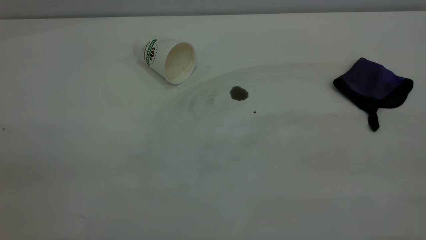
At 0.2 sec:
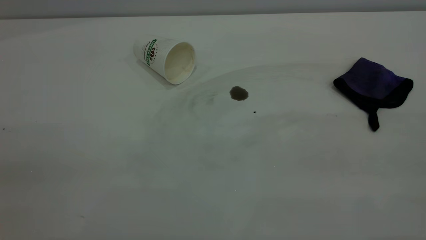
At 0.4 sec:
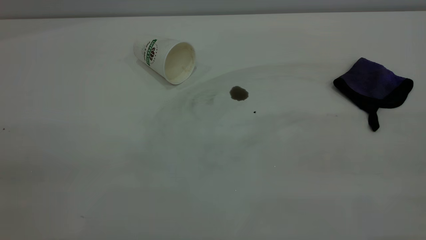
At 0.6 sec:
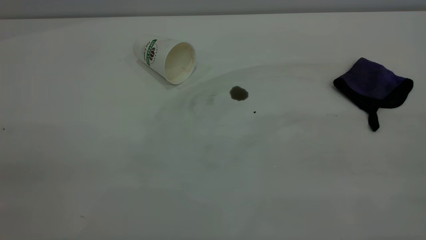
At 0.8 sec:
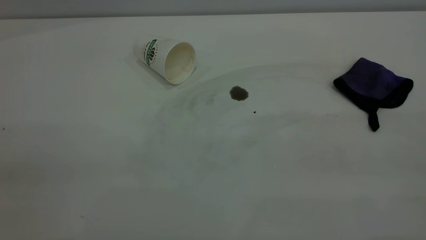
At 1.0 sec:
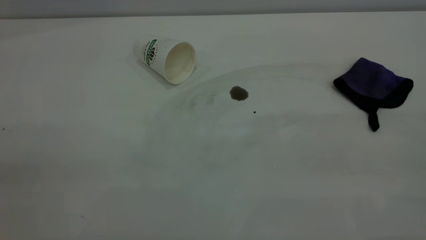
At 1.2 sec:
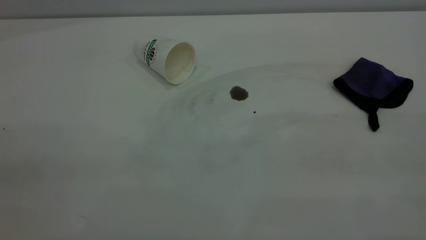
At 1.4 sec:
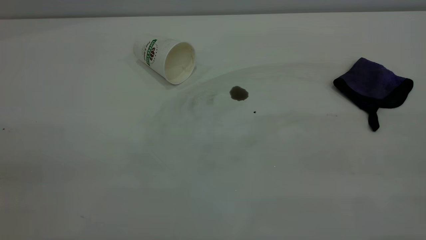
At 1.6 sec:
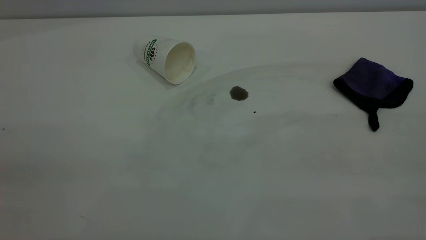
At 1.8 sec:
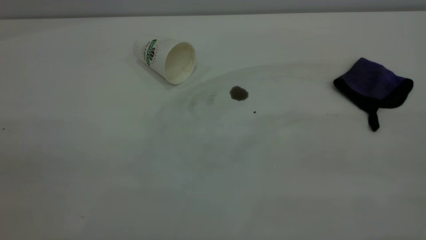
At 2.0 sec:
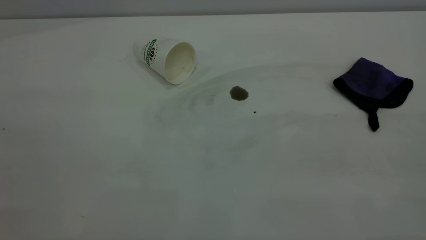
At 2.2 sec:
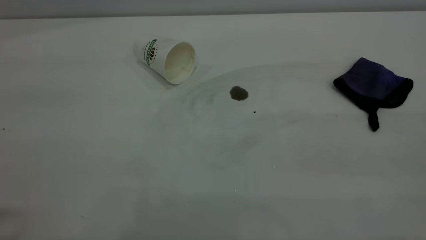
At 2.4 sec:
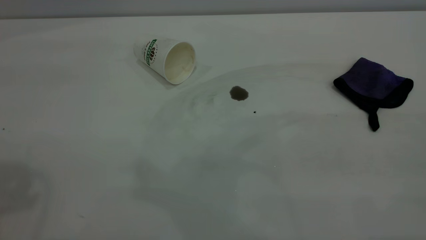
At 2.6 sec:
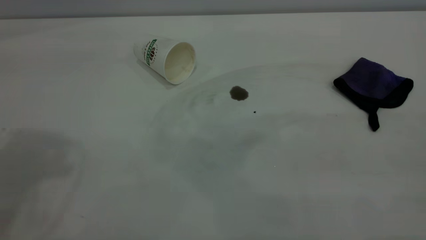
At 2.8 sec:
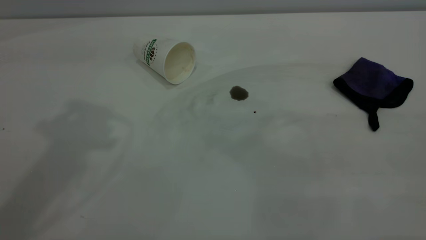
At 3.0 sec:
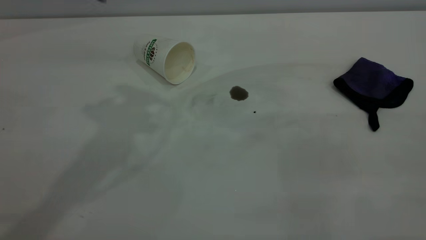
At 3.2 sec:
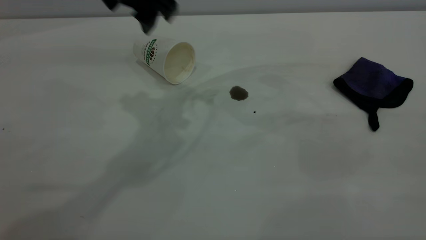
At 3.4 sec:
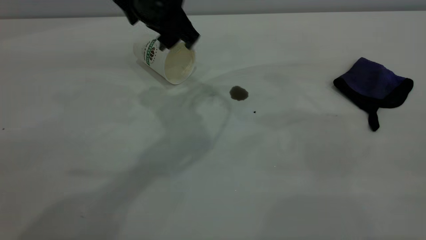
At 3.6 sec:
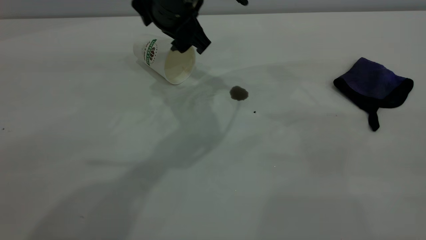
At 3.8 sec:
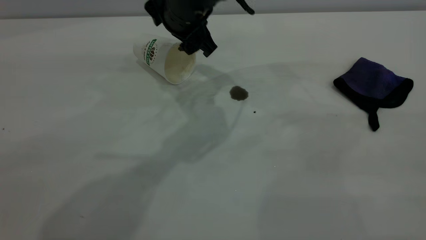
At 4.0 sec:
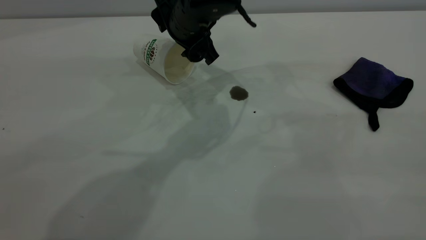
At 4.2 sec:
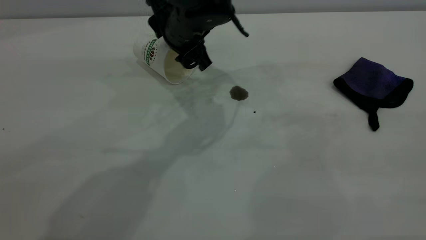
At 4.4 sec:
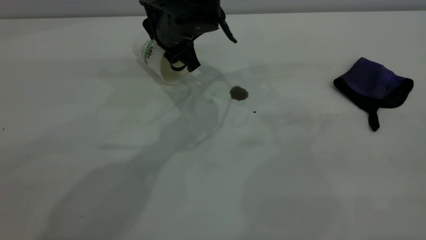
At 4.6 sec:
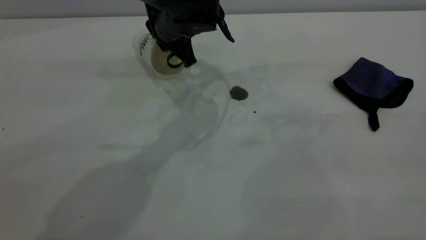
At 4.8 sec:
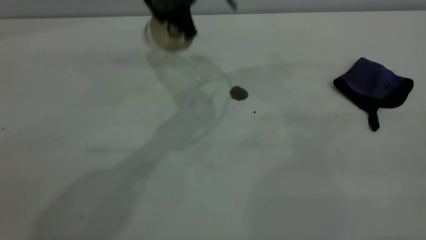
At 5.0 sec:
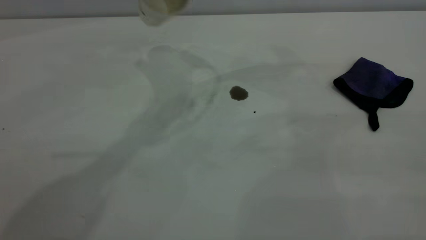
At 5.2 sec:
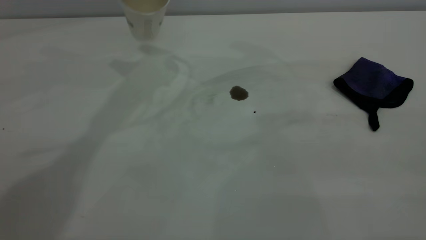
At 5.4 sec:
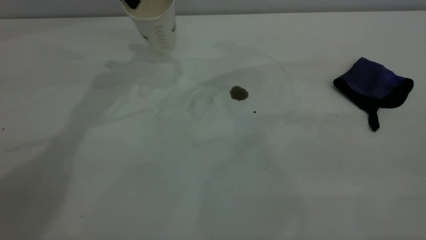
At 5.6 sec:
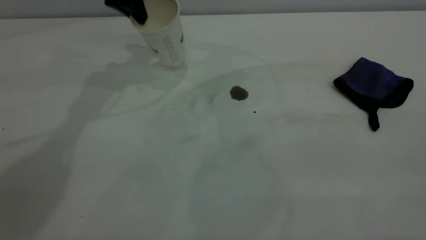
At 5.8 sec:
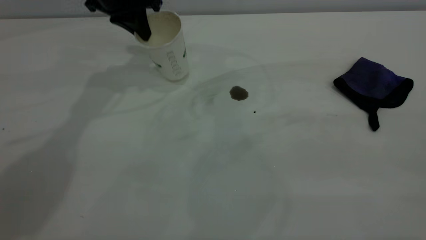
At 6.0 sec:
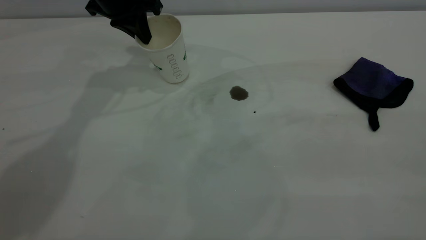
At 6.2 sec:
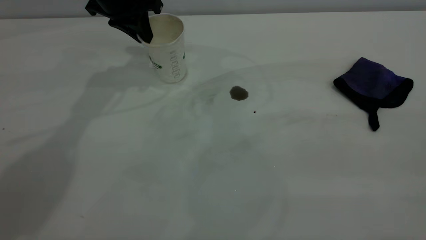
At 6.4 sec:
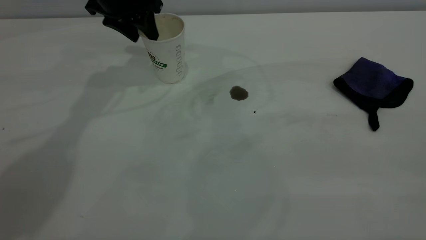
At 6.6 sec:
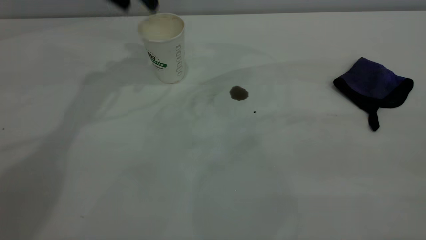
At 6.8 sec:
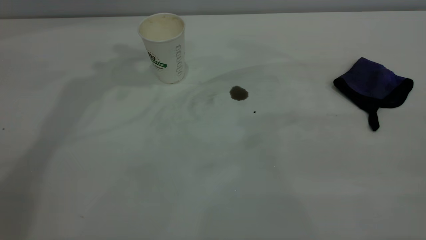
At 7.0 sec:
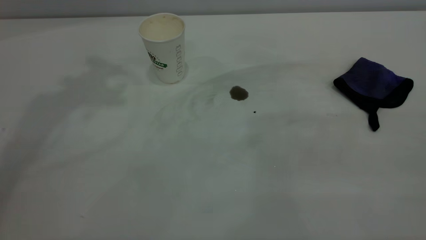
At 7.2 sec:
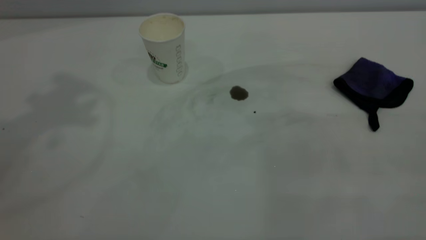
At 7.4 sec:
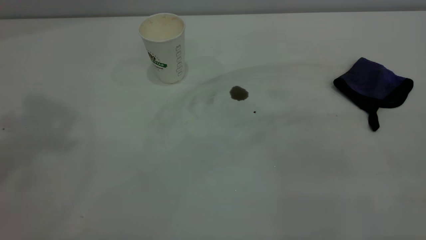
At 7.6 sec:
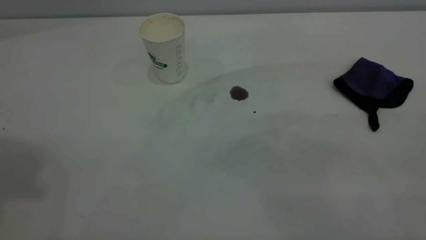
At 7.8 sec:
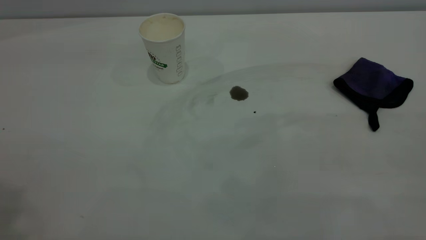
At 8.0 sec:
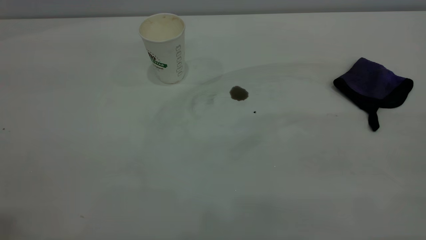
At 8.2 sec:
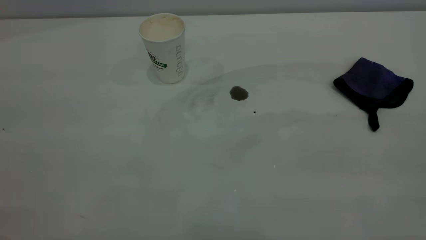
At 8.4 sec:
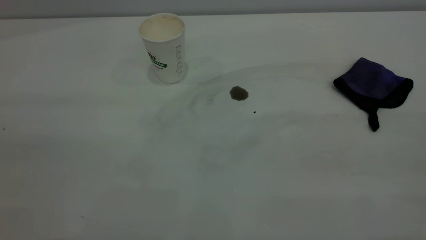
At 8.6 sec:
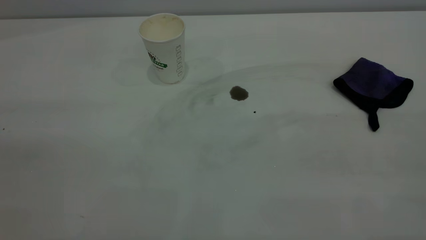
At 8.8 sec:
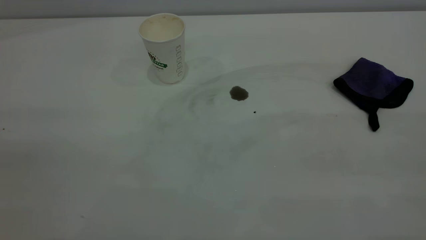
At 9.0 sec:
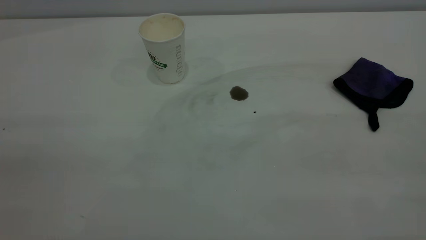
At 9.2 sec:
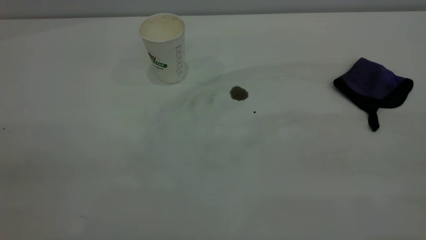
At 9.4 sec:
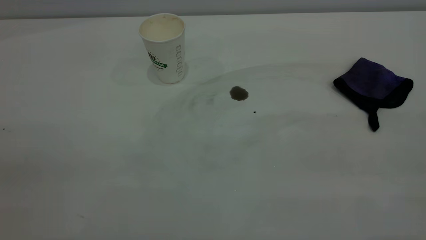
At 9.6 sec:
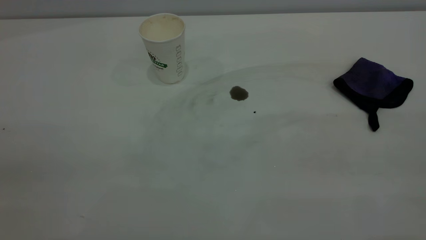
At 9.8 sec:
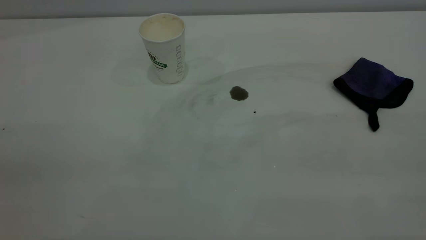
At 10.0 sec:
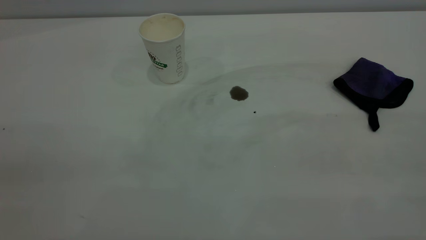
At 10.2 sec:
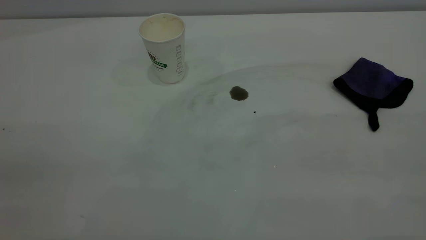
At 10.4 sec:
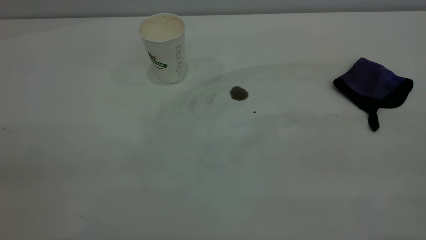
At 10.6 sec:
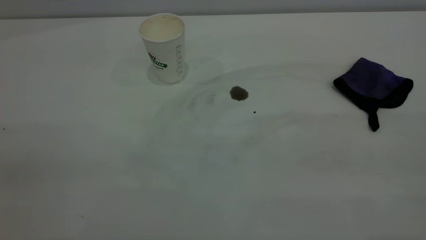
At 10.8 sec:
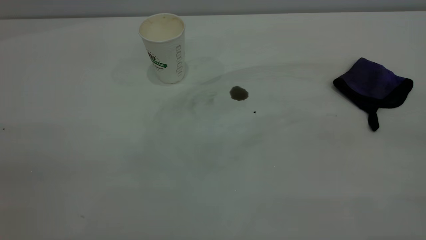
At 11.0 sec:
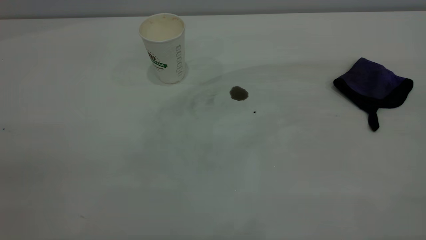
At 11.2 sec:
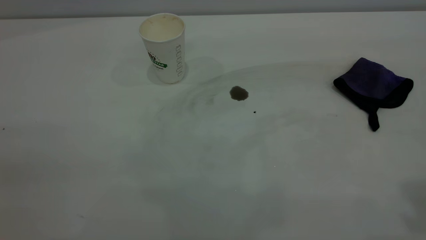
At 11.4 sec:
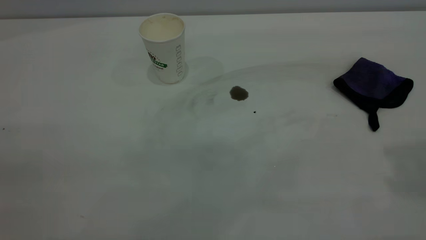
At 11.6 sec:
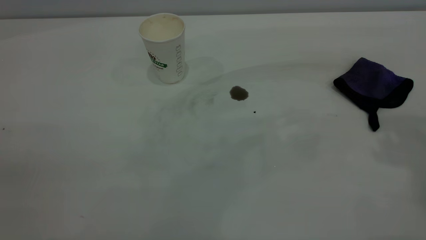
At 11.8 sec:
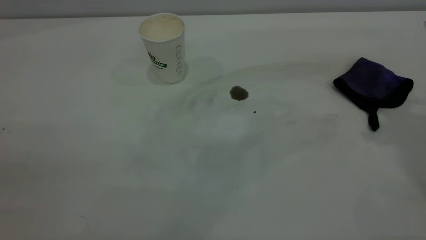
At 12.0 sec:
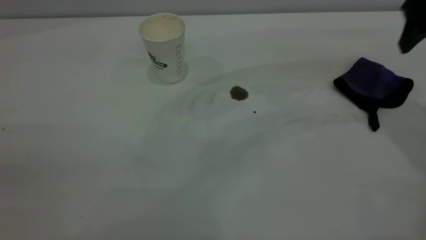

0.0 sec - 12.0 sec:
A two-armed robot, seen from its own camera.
Task of the whole recording: the left gripper pick up the fallen cup and place it upright, the right gripper grasp the purple rag and wipe the coffee stain on the table, the right gripper put the purple rag back in its original position.
Step, 0.0 sec - 6.4 sec: Stand the paper cup upright.
0.0 sec - 1.6 sec: The two grippers keep their place.
3.0 sec - 4.4 sec: The left gripper heads downward, to the right and forward, covering about 25 cm, and closes.
4.4 sec - 6.0 sec: The left gripper travels to the left, upward and forward by roughly 15 cm, and closes its fingers.
6.0 sec - 7.6 sec: The left gripper is displaced upward and backward by about 50 cm, and opens its fingers.
9.0 sec - 10.4 sec: The two grippers keep their place.
10.4 sec - 12.0 sec: The right gripper shifts some 35 cm forward, and opens.

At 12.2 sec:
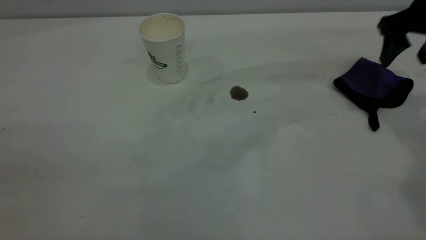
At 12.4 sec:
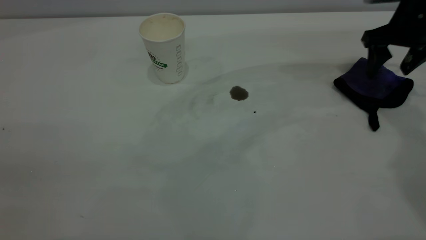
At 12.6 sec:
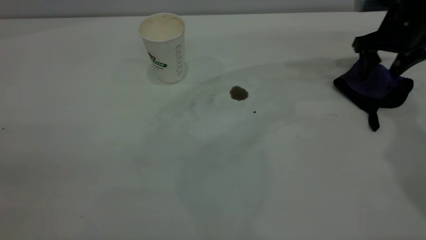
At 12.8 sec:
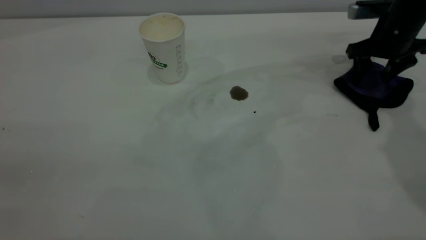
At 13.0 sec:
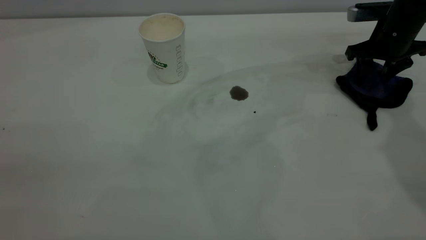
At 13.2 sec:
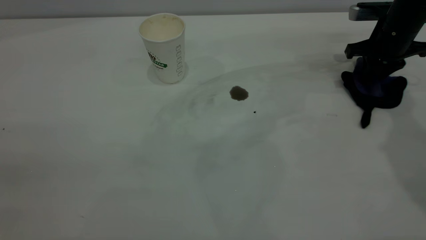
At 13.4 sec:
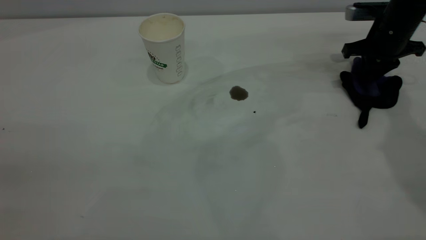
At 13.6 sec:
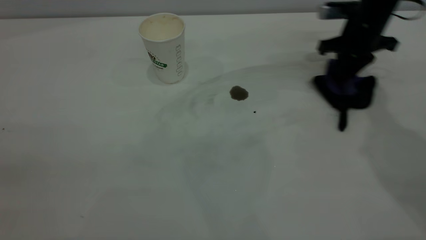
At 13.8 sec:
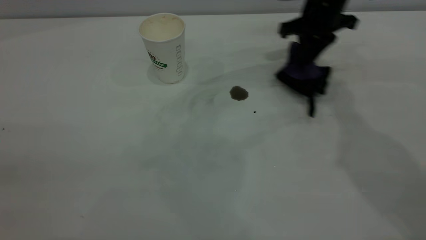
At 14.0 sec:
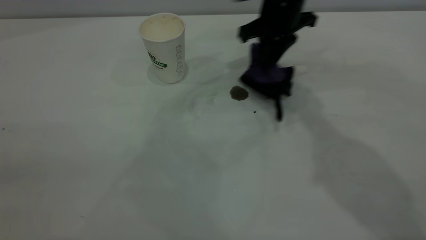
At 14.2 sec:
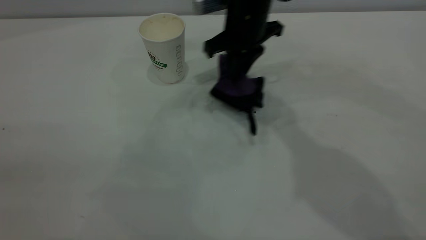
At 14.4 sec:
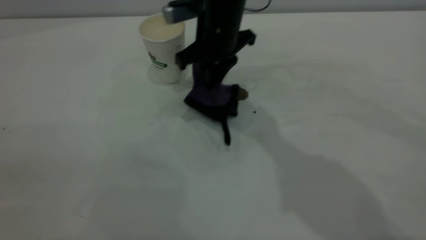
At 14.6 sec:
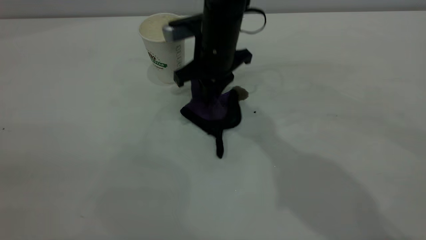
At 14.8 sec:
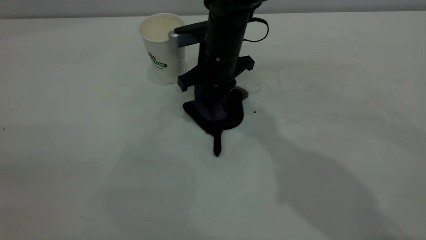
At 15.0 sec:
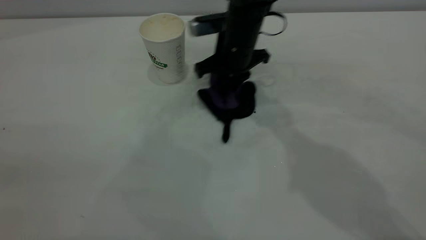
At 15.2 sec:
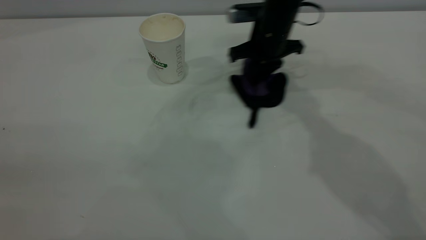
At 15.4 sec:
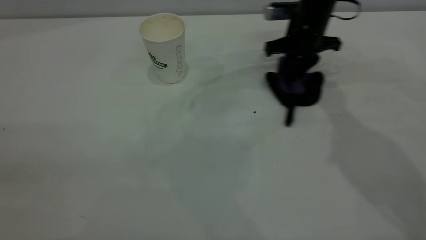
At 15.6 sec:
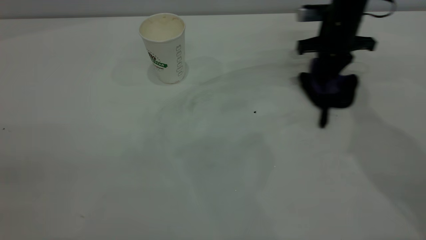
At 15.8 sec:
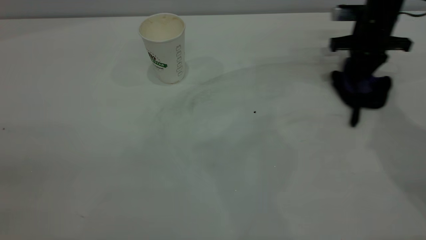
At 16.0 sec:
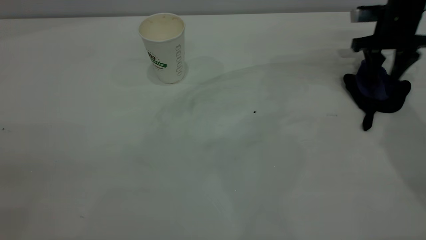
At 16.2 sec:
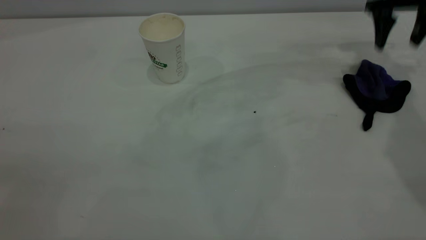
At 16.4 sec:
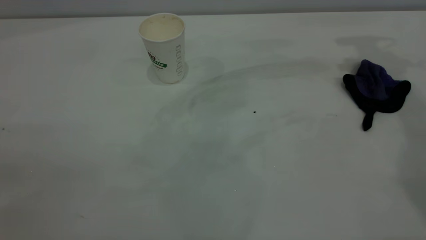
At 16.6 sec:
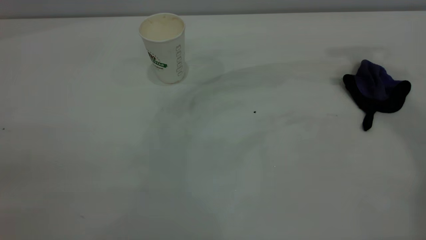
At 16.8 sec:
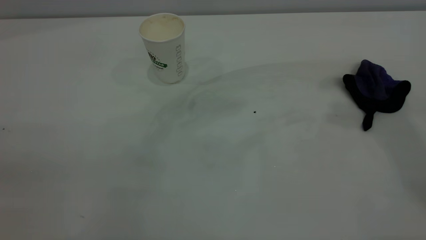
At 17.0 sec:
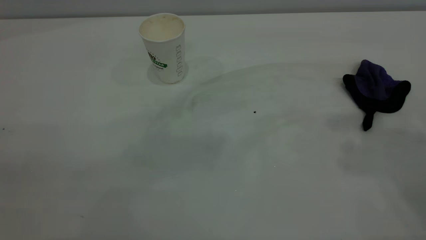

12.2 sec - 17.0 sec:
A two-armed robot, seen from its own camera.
Task of the whole recording: the left gripper pick up the fallen cup and place it upright, the right gripper grasp the purple rag and wipe the coffee stain on the table, the right gripper put the purple rag back in its original position.
Step, 12.2 sec - 16.0 sec: Wipe the stains off the table with a rag.
12.2 sec - 13.8 sec: The right gripper heads to the left and forward, covering roughly 15 cm, and closes up.
13.8 sec - 15.4 sec: The right gripper shifts approximately 5 cm downward, and goes to the left and returns, approximately 15 cm each way.
15.4 sec - 17.0 sec: The right gripper moves upward and backward, roughly 40 cm, and opens up.
